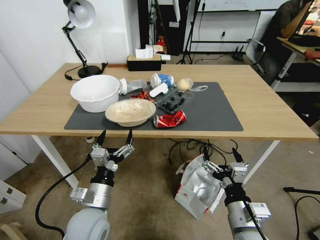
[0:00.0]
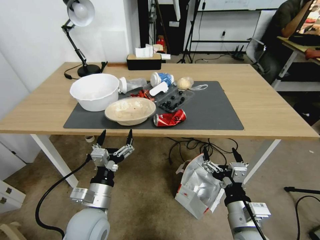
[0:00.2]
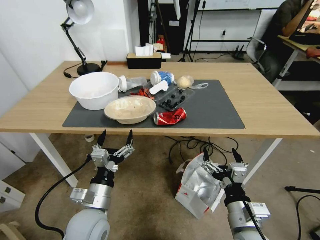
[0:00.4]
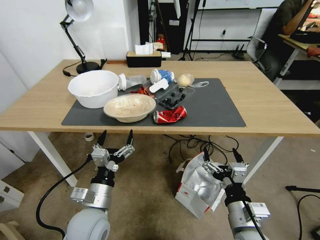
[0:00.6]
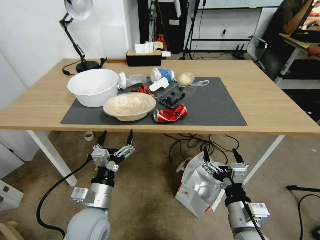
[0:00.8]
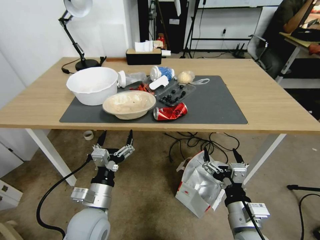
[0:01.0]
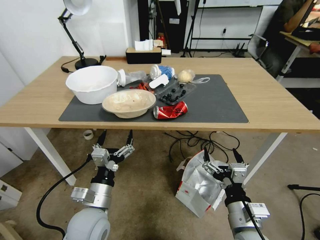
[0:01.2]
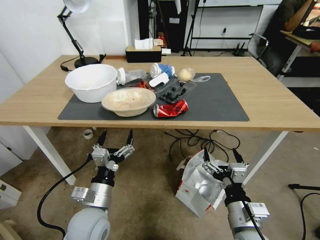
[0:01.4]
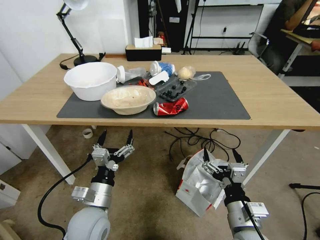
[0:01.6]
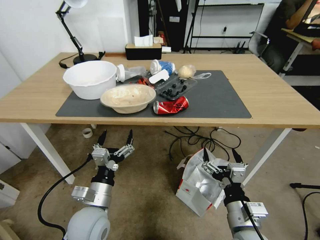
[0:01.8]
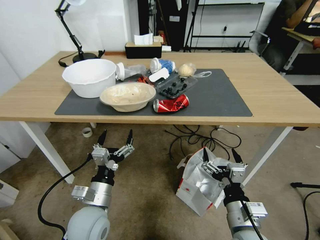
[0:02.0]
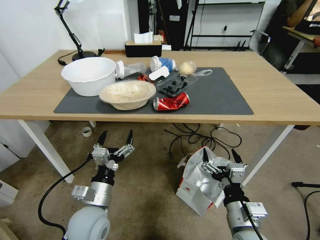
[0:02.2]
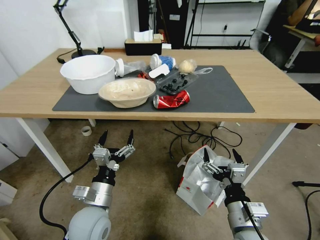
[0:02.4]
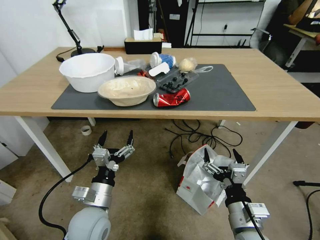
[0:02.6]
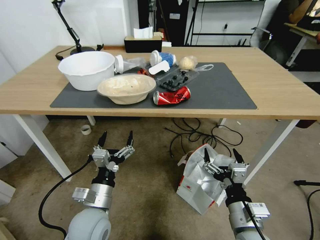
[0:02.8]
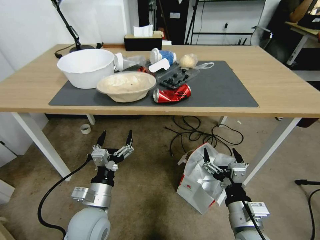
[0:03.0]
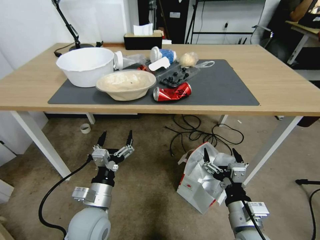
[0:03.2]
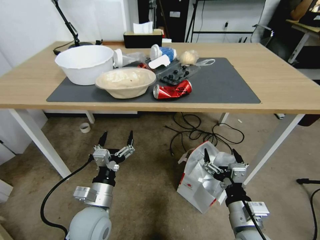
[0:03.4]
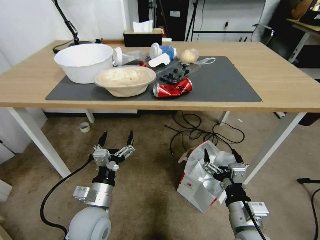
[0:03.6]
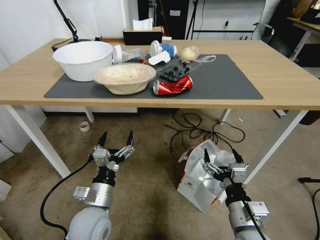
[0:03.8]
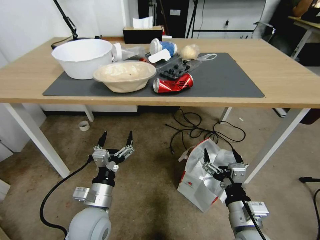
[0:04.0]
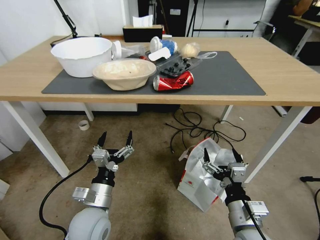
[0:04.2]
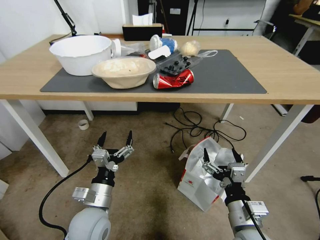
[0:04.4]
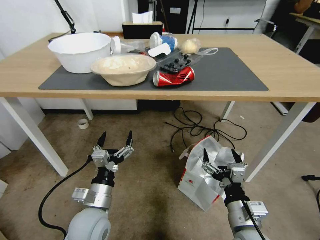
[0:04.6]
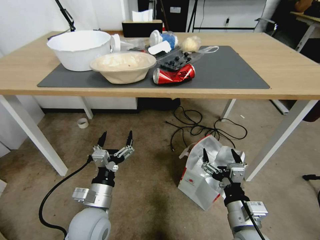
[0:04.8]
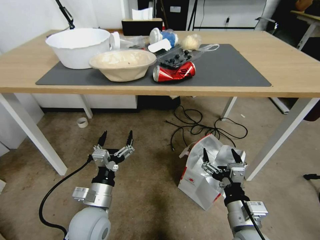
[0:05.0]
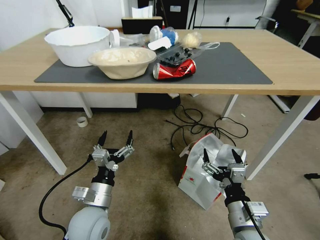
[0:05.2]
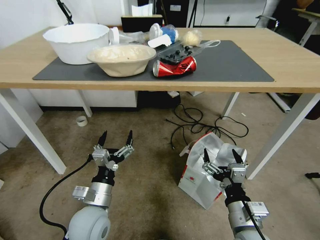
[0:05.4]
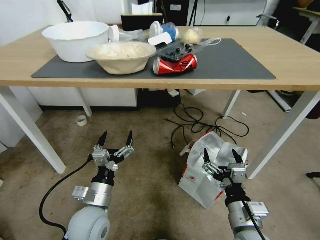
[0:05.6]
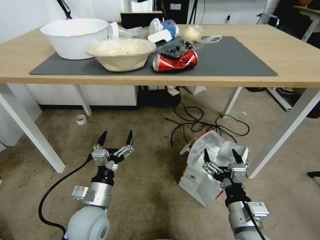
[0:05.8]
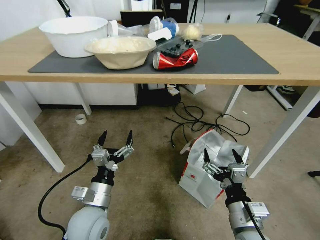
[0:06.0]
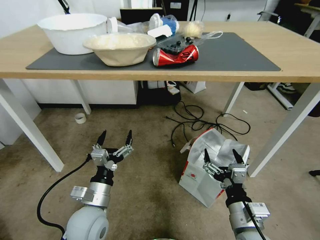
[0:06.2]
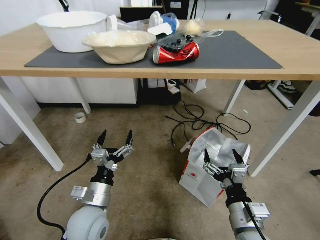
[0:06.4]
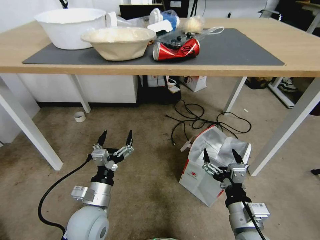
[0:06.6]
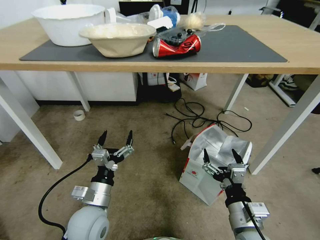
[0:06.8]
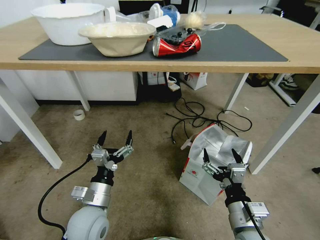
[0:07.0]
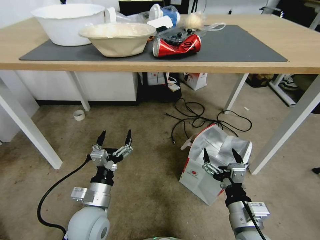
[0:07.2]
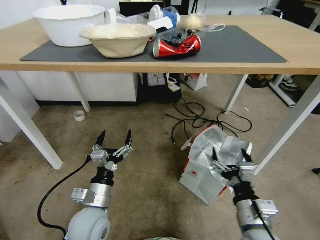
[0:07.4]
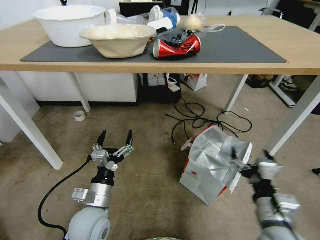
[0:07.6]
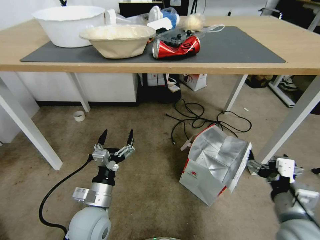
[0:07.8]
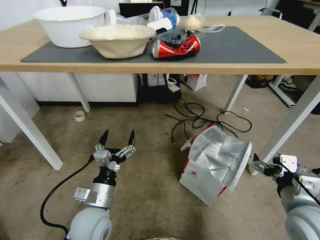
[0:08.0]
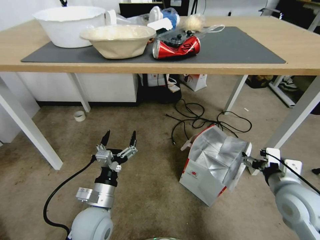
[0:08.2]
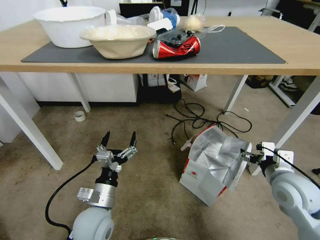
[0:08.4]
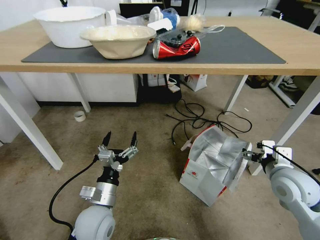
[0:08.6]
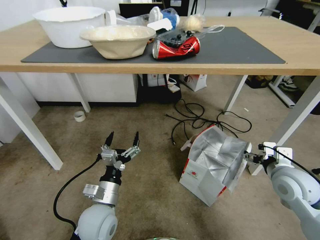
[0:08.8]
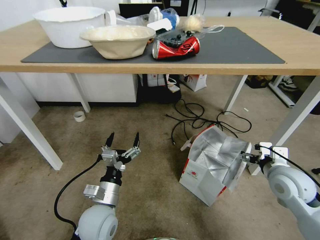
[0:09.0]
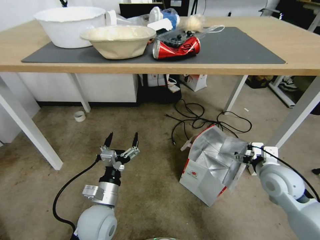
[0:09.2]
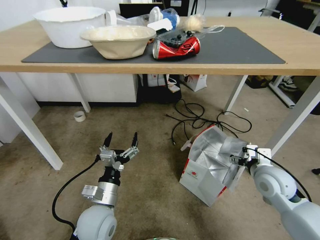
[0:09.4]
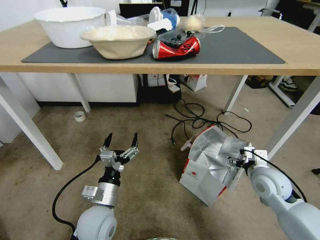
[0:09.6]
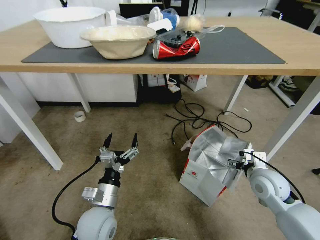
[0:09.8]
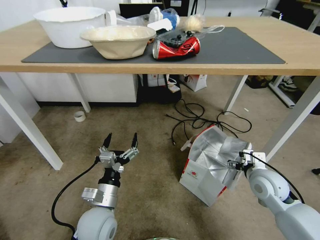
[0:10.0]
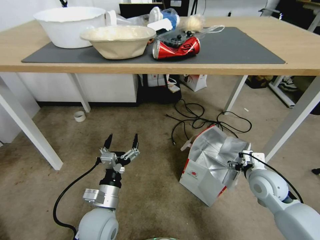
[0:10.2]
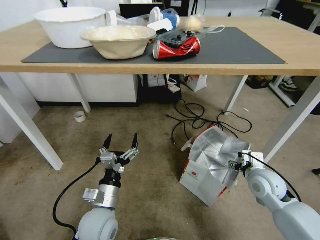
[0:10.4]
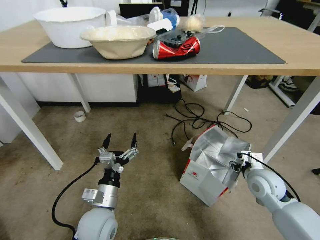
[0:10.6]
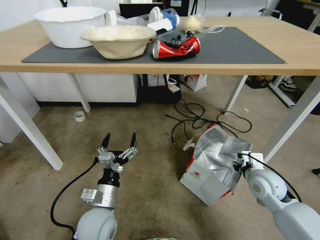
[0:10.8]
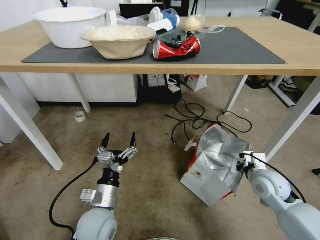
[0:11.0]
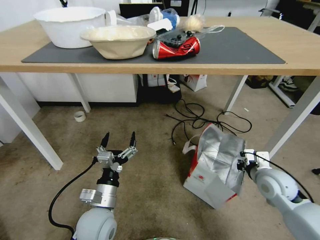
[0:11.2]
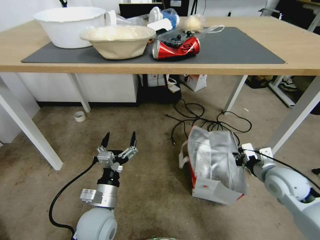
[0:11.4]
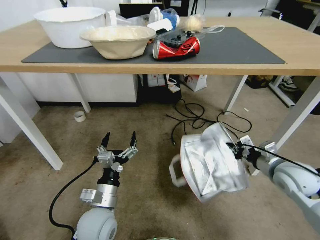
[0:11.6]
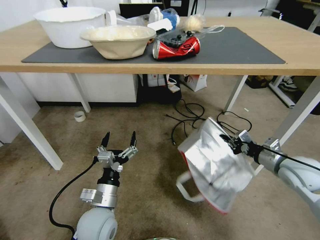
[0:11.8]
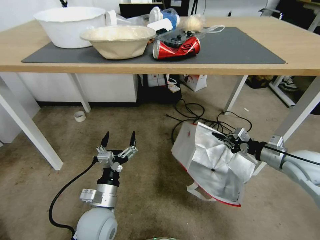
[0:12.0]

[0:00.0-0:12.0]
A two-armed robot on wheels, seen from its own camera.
Task of the whole recording: Pick up the food delivery bag from the floor and place it on the table.
0:06.0 to 0:07.6: The right gripper moves roughly 5 cm.
0:07.6 to 0:09.0: The right gripper moves forward and to the right, roughly 15 cm.
0:09.0 to 0:10.4: The right gripper heads downward, covering roughly 5 cm.
0:10.4 to 0:12.0: The right gripper moves to the right and upward, roughly 10 cm, and closes up.

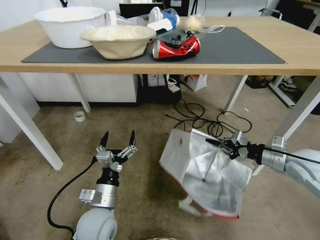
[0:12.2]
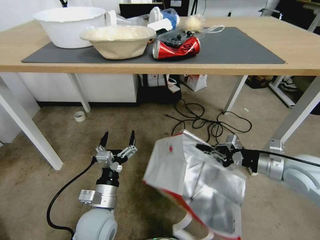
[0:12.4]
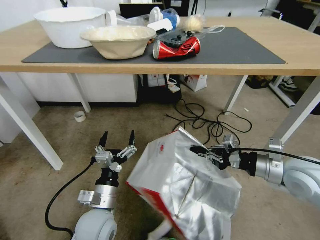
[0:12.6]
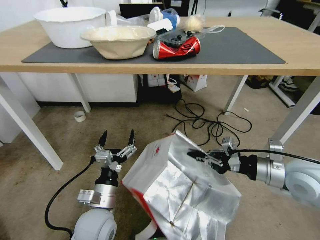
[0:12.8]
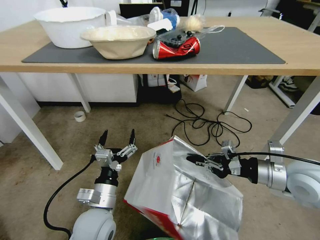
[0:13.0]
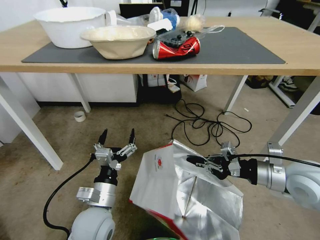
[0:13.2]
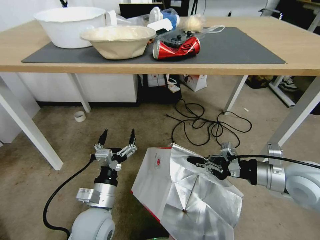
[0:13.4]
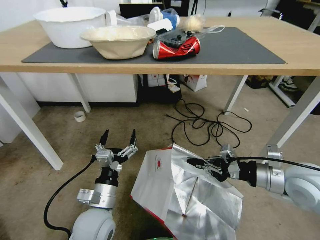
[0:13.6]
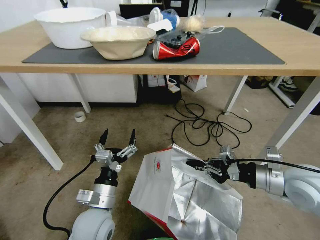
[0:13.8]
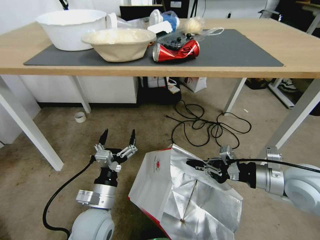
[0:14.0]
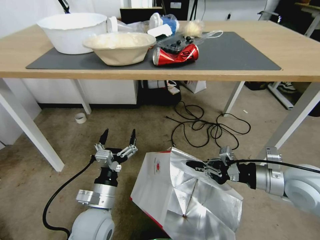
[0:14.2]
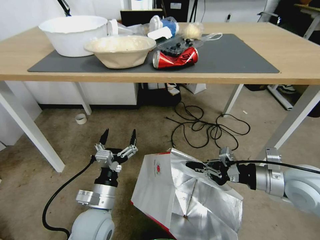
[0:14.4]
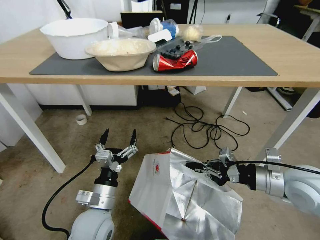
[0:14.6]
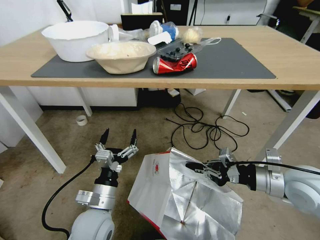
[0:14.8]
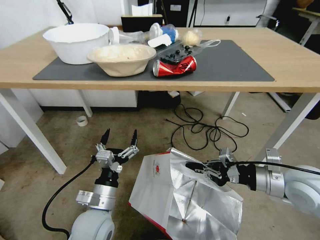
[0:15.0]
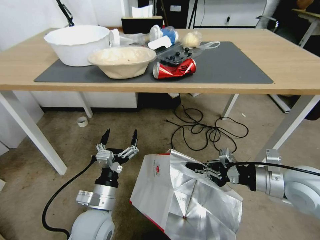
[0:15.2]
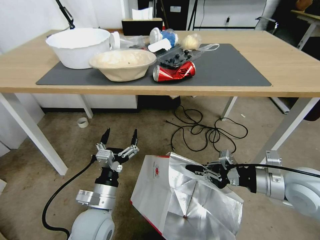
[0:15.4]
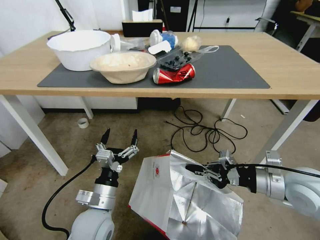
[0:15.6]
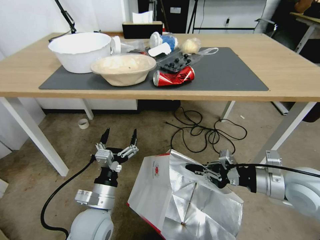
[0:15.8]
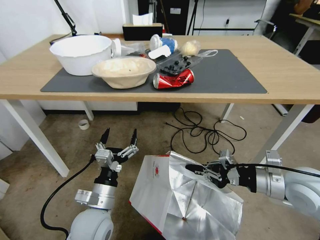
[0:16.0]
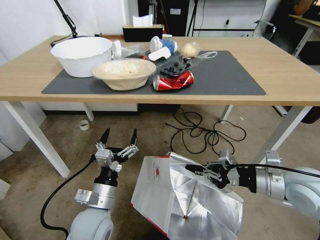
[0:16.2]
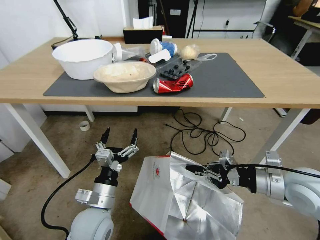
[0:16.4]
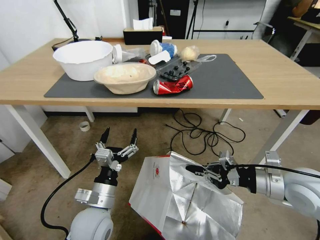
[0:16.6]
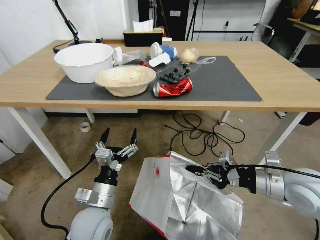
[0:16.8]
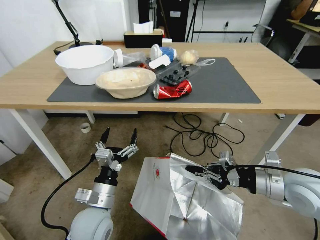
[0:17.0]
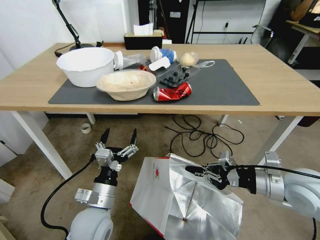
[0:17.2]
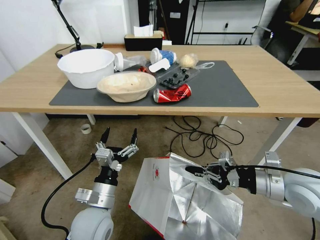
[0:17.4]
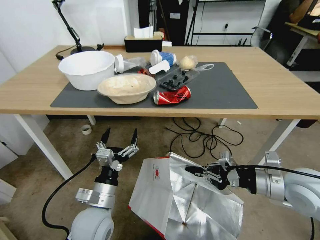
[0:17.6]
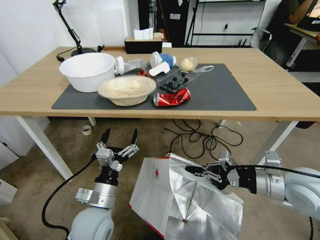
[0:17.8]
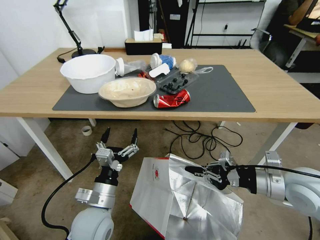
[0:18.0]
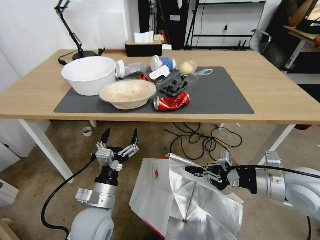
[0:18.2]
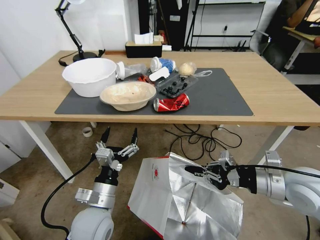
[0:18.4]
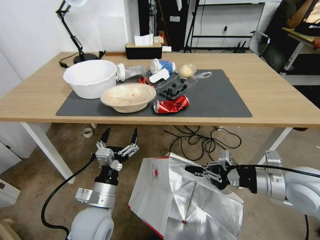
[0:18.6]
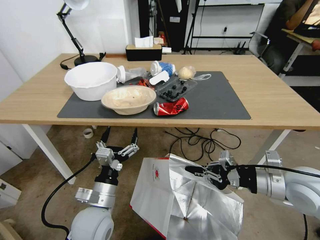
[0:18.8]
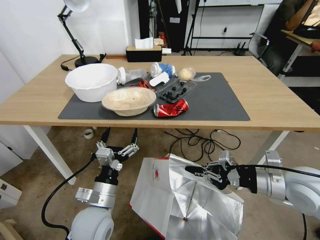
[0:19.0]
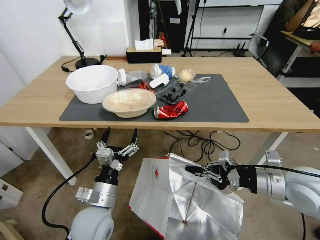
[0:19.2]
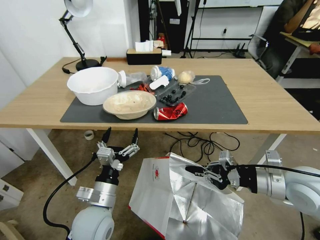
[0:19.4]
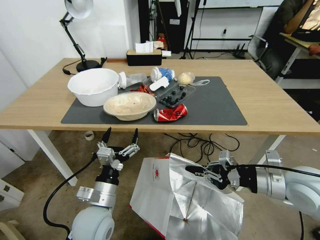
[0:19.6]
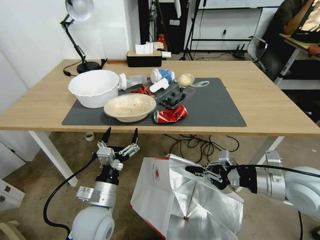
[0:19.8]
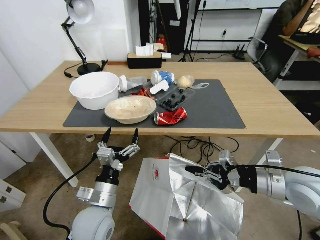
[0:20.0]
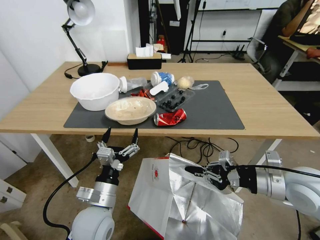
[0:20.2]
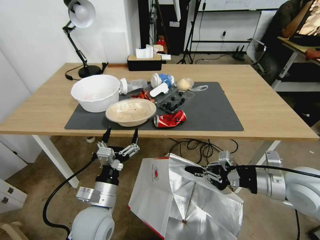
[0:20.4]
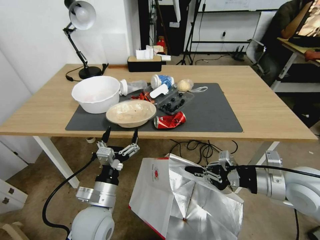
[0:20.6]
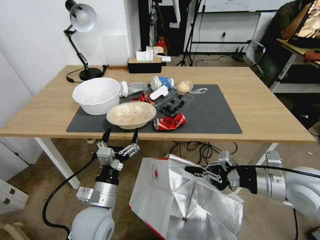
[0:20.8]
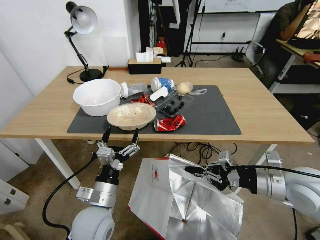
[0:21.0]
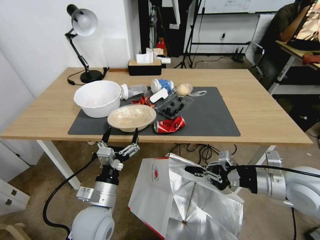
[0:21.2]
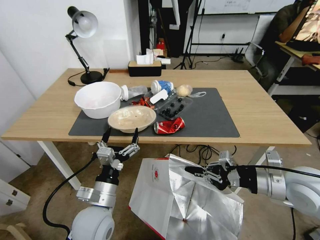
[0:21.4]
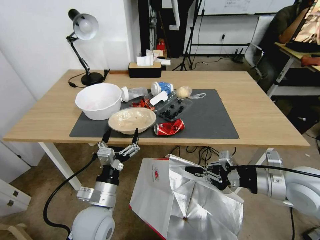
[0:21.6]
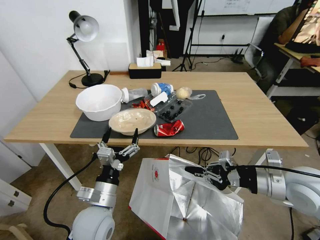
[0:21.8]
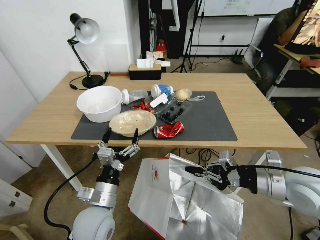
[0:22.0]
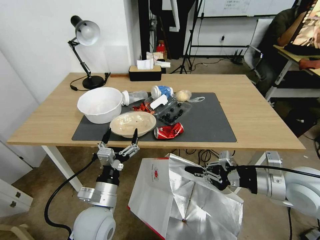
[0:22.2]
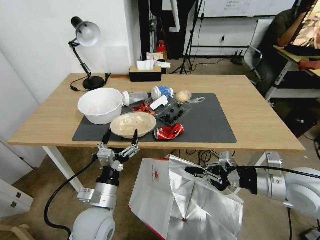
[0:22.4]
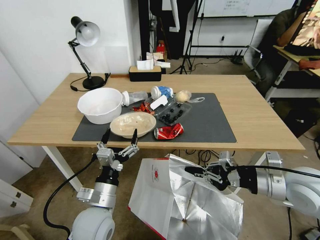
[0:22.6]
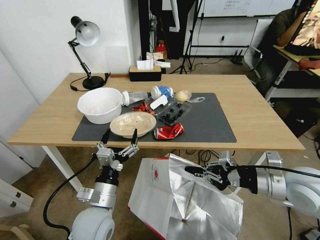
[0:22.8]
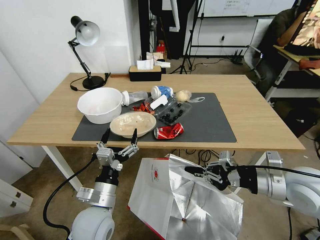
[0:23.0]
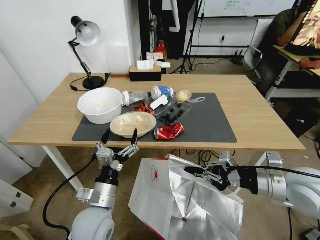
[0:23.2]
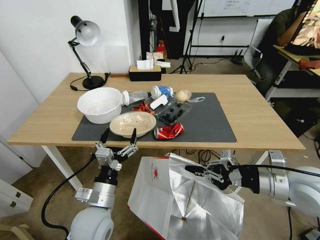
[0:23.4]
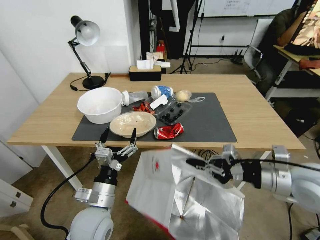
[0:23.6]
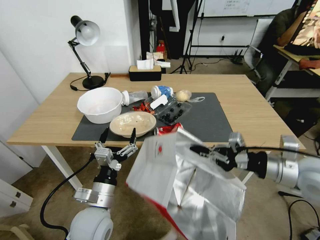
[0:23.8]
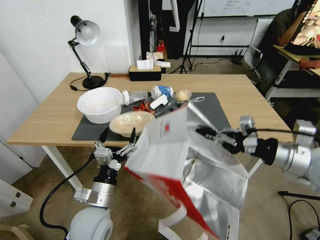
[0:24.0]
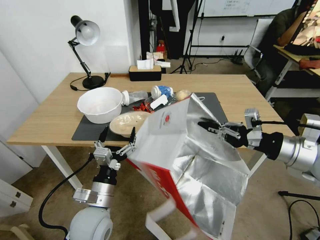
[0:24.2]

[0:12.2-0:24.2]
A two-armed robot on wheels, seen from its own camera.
Task of the whole recording: Pick up the food delivery bag from the floor and place it on the table.
0:12.2 to 0:13.8: The right gripper heads to the left and backward, covering about 10 cm.
0:22.6 to 0:24.2: The right gripper is displaced upward by roughly 10 cm.
